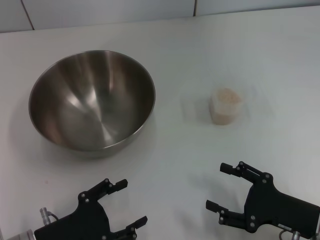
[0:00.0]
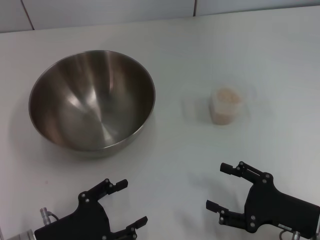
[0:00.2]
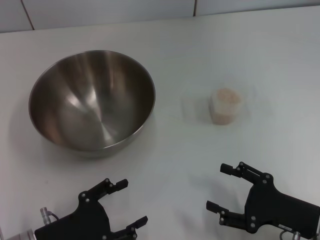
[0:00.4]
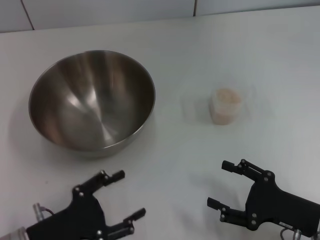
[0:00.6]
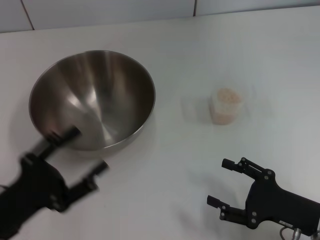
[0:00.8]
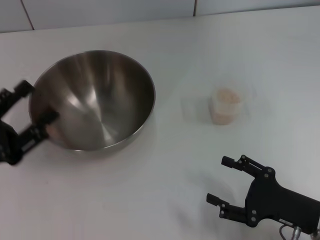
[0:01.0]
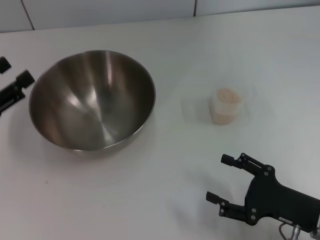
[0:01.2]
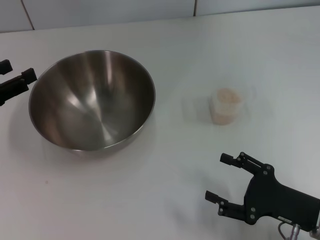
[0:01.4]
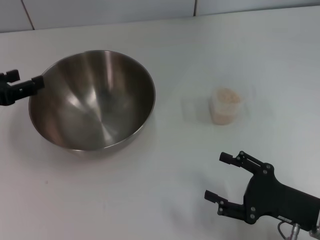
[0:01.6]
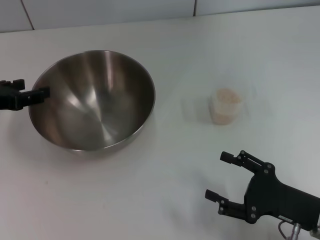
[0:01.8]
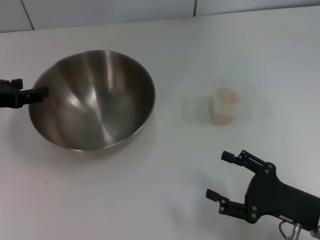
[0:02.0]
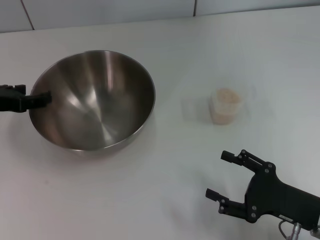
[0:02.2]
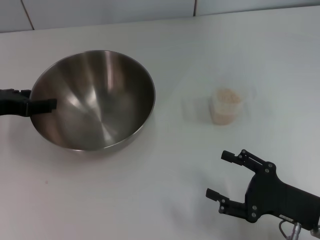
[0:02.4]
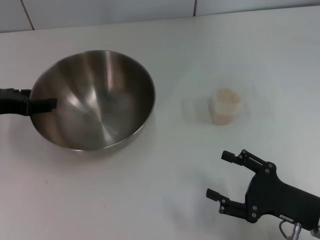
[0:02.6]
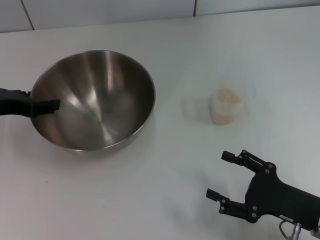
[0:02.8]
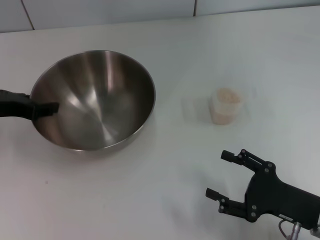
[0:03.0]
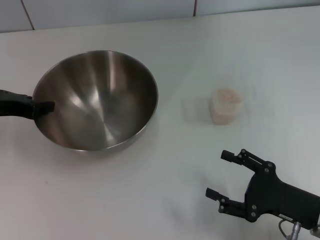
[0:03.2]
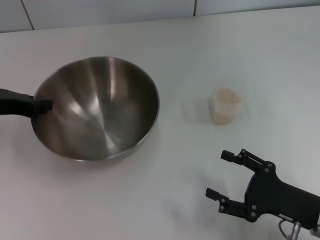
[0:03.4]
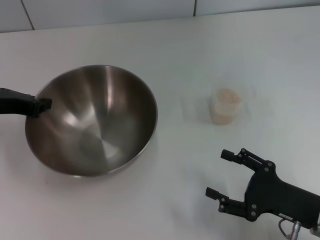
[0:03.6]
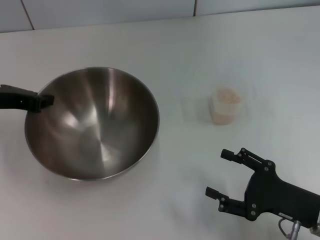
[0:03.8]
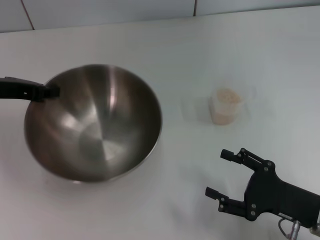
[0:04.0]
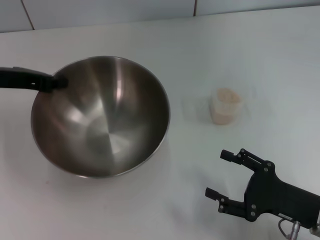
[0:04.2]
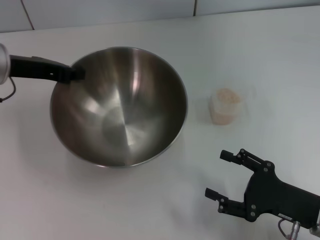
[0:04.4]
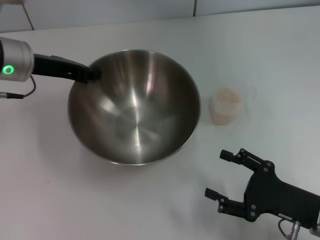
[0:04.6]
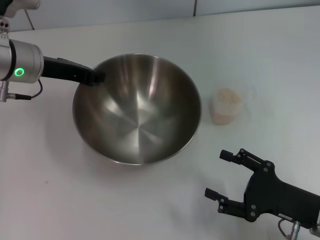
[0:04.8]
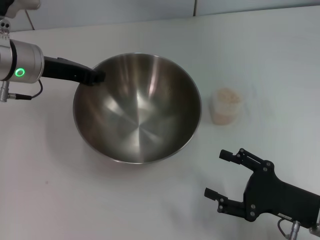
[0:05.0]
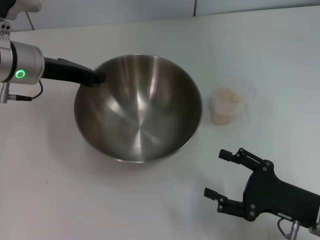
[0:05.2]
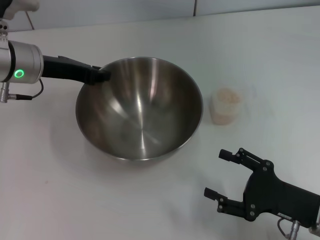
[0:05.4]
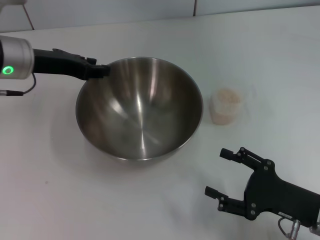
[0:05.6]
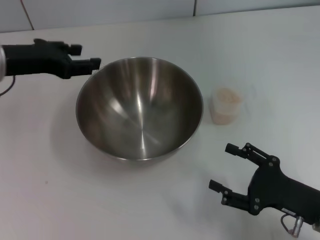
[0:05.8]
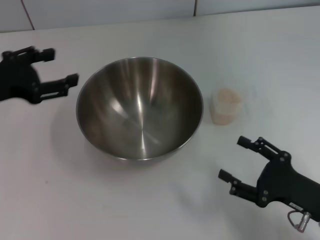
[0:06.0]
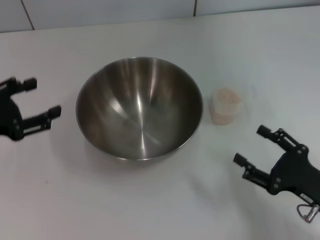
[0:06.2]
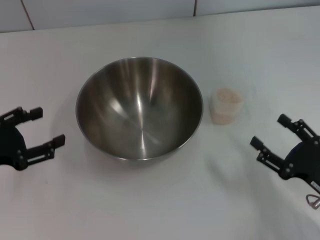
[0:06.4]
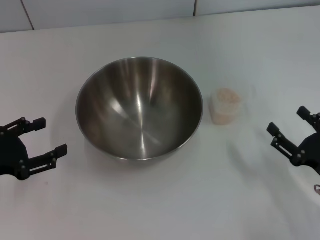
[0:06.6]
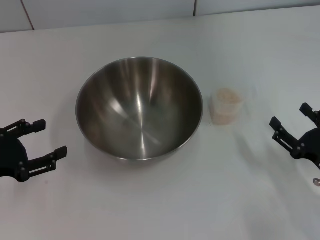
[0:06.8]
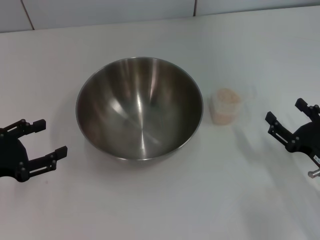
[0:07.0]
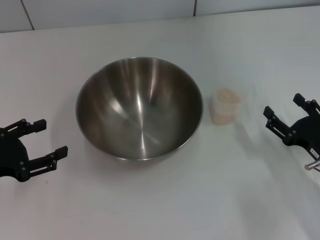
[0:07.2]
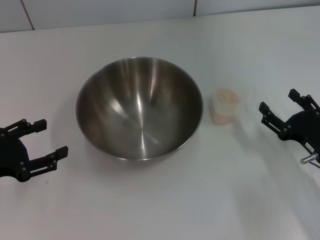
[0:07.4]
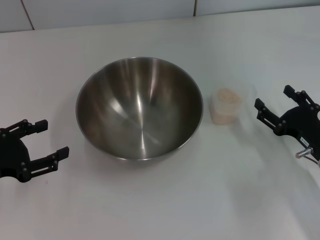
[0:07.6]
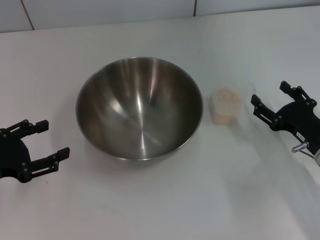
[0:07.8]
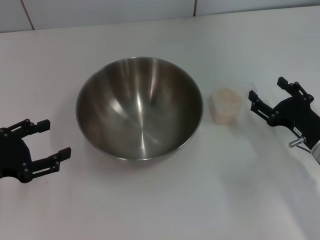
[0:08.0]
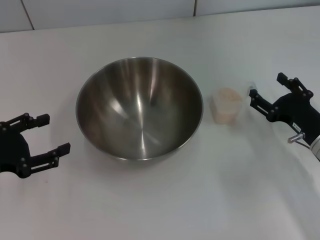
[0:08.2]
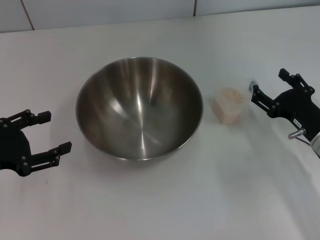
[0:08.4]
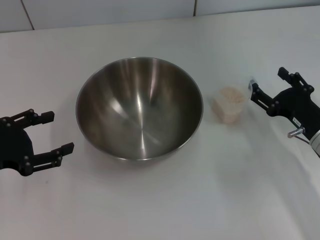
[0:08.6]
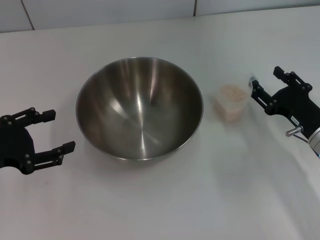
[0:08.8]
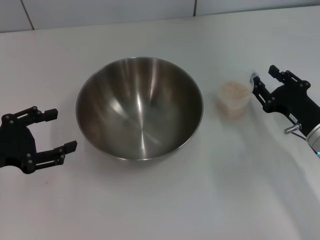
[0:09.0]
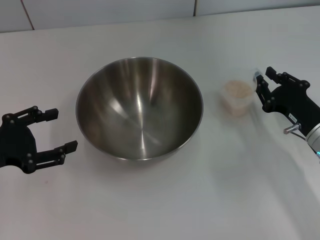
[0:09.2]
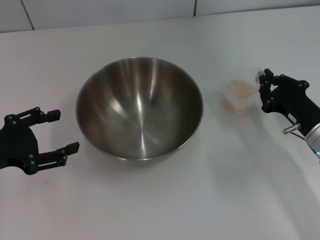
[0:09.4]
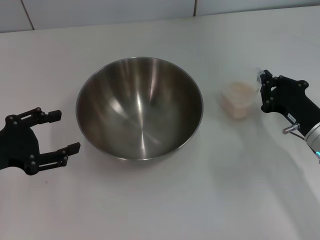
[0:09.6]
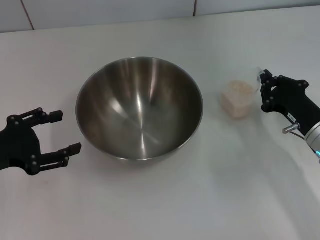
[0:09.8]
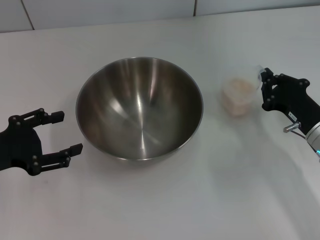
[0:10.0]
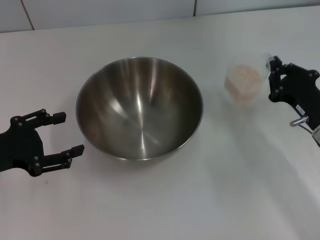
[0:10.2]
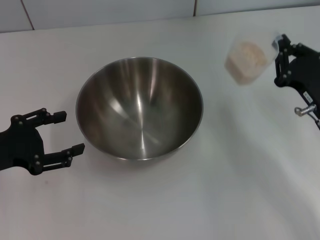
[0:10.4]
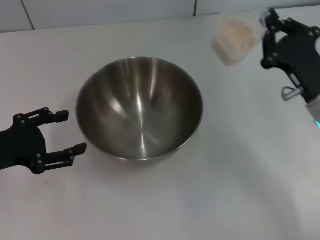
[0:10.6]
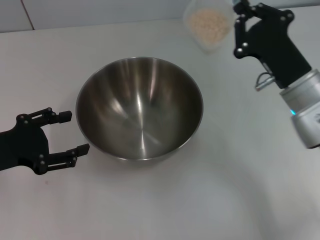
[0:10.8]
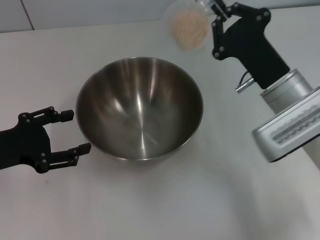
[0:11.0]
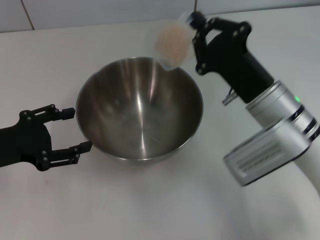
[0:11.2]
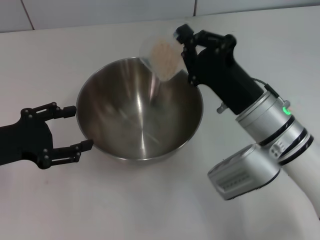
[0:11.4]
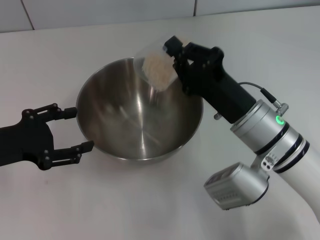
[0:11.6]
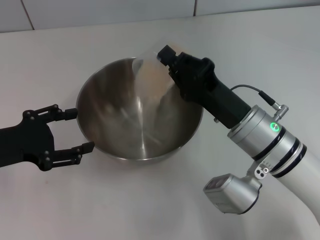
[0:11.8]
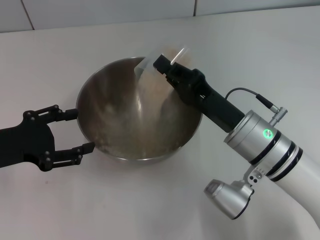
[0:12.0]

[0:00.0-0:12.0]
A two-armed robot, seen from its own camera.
Task of the whole recording: Place the bowl in the middle of the table with one hand and pour the rice from the grain cup into it with the other hand.
Step, 0:00.0 to 0:02.8: Pick up the bowl with the left gripper.
Step, 0:03.2 to 0:05.6: Place the bowl in the center of view with the left gripper.
Step, 0:05.8 to 0:10.2: Pick up the cup with rice in it with the right gripper.
0:00.0 to 0:01.6: The left gripper shifts approximately 20 cm forward, upward and to the left.
0:03.0 to 0:04.4: The left gripper moves roughly 5 cm, and closes up.
0:04.4 to 0:06.0: The left gripper shifts roughly 5 cm backward, and opens up.
0:06.0 to 0:07.6: The right gripper is displaced forward by about 5 cm, while the left gripper moves backward and downward, some 10 cm.
0:07.6 to 0:09.0: The grippers make only small movements.
0:09.0 to 0:10.4: The right gripper closes.
0:10.4 to 0:12.0: The right gripper goes about 15 cm to the left.

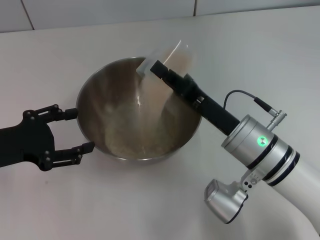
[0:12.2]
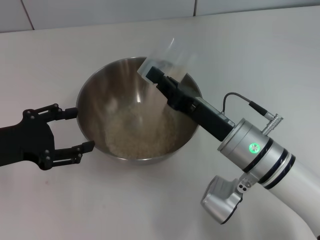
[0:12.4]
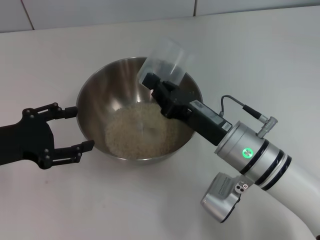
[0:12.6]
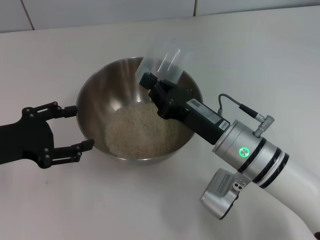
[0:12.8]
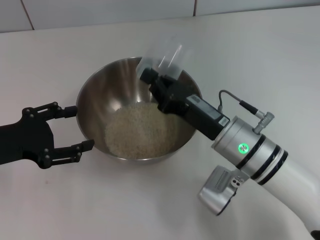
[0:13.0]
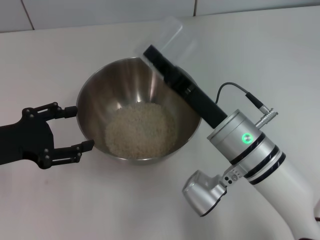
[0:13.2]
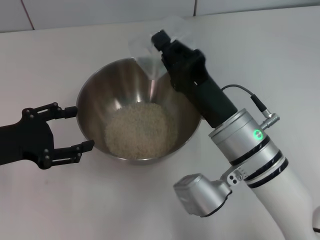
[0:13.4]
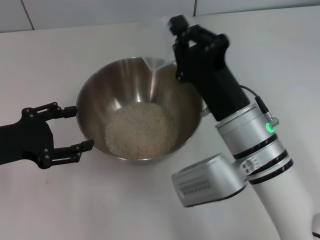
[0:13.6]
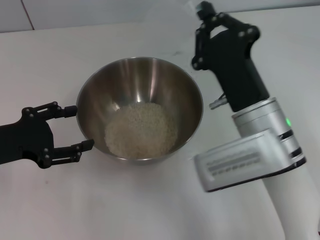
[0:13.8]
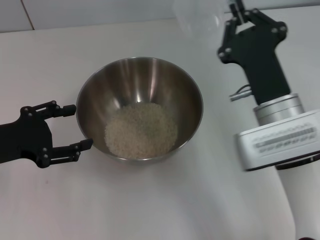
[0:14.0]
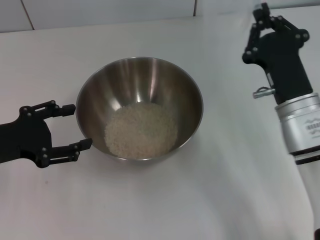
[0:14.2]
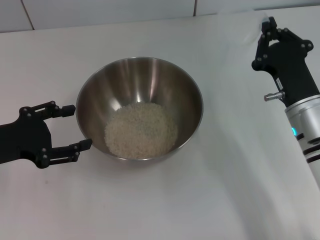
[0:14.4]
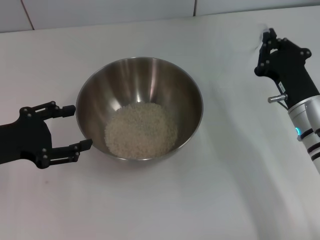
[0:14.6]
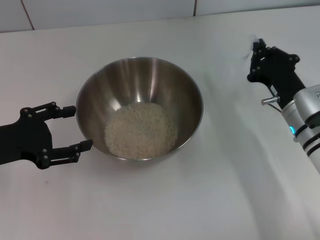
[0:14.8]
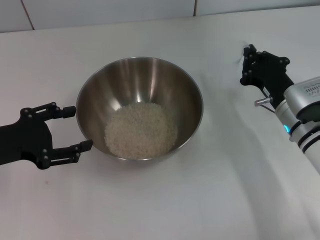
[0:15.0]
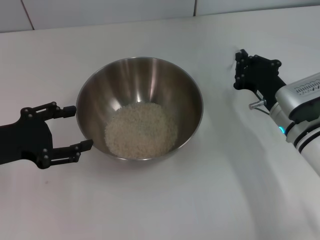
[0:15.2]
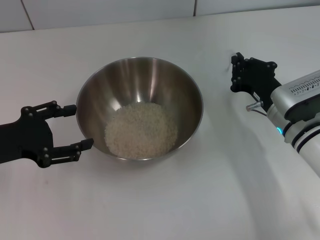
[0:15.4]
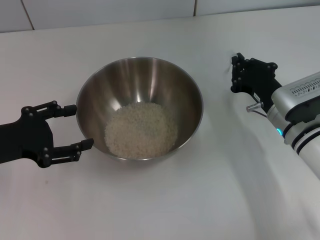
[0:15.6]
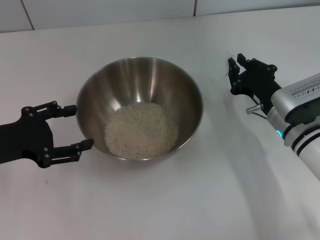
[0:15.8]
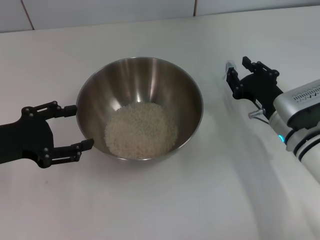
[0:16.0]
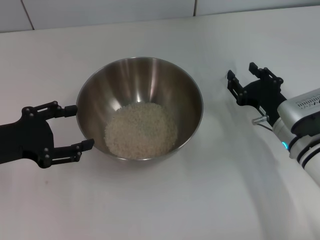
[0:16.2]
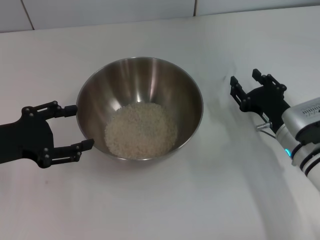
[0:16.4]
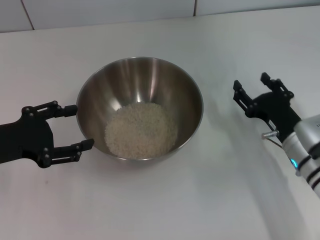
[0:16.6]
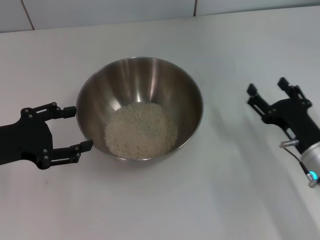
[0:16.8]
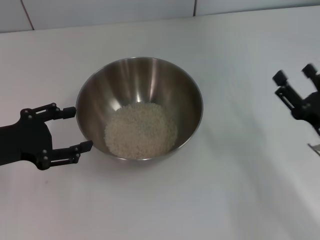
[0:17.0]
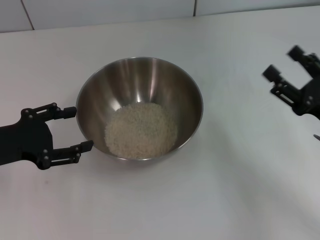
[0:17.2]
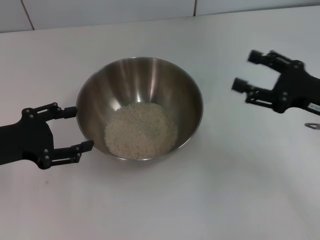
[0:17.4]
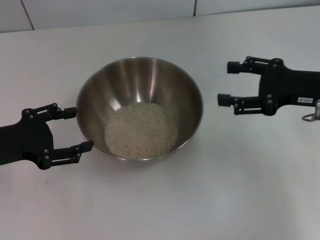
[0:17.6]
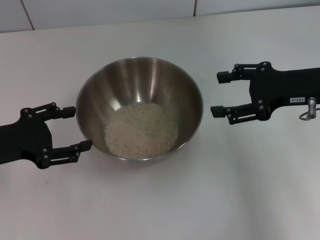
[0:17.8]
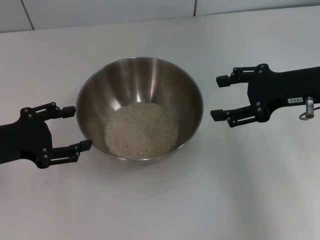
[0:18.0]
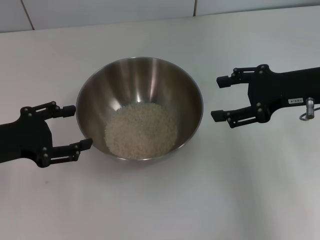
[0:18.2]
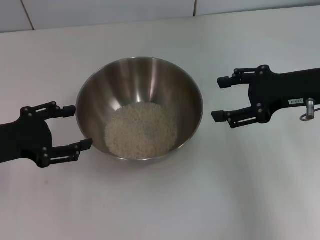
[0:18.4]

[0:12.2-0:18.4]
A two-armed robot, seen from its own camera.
Task of the whole recording: Place the bowl in the middle of the table with one hand and pour the rice from the grain cup into it with the other hand.
Step, 0:14.0 to 0:16.8: Place the cup on the table with the right gripper.
0:13.8 to 0:15.4: The right gripper moves to the right, downward and forward, roughly 15 cm.
0:15.4 to 0:16.8: The right gripper heads backward, covering approximately 10 cm, and opens up.
0:16.8 to 0:18.4: The right gripper shifts approximately 15 cm upward and forward.
